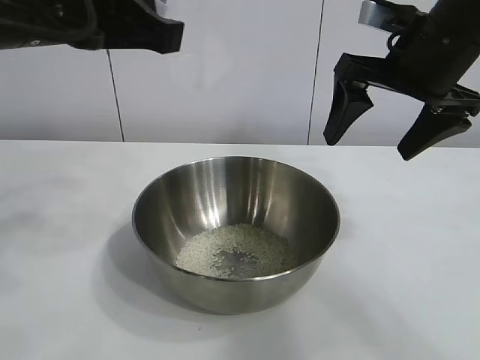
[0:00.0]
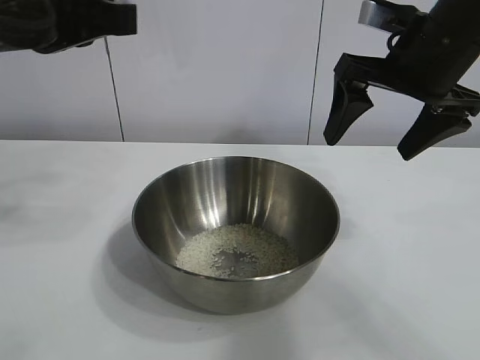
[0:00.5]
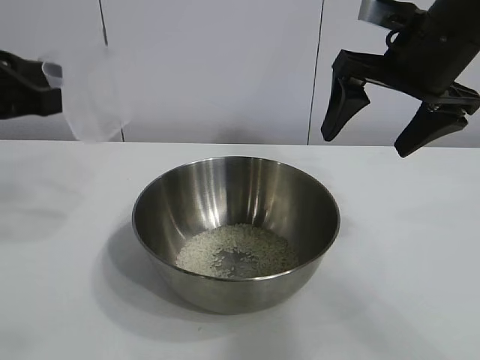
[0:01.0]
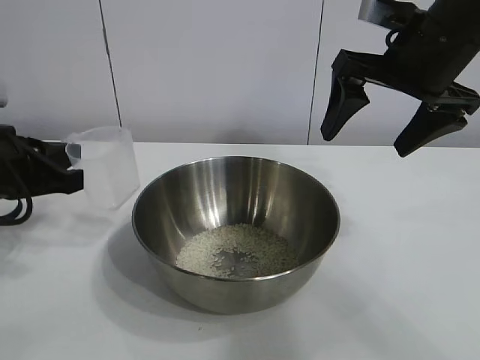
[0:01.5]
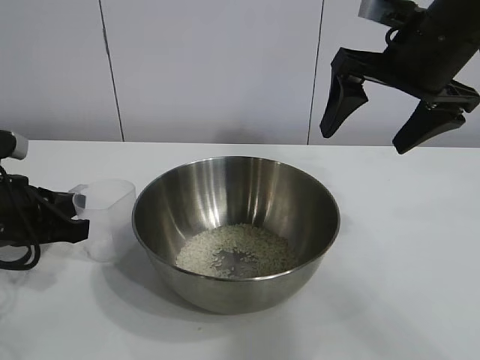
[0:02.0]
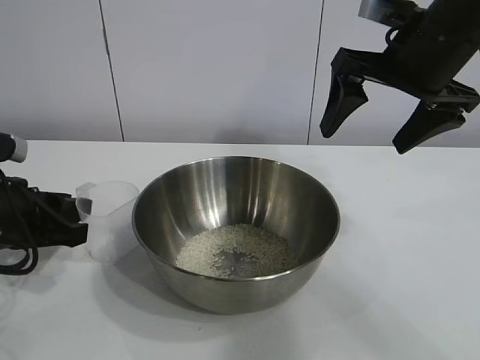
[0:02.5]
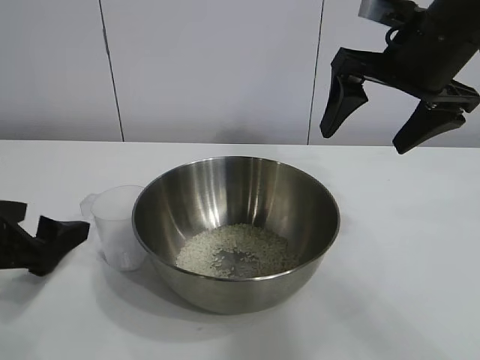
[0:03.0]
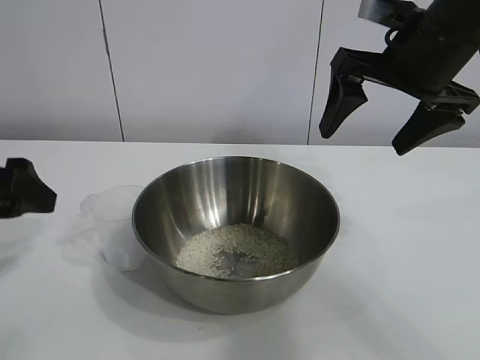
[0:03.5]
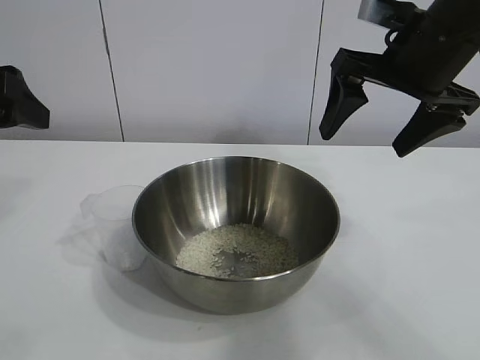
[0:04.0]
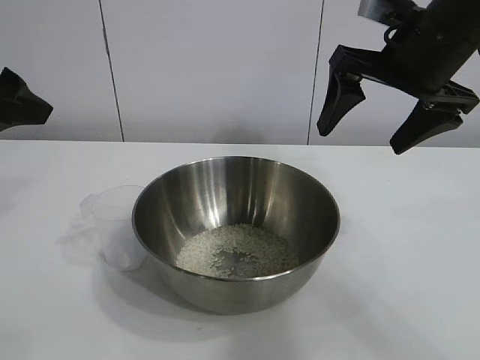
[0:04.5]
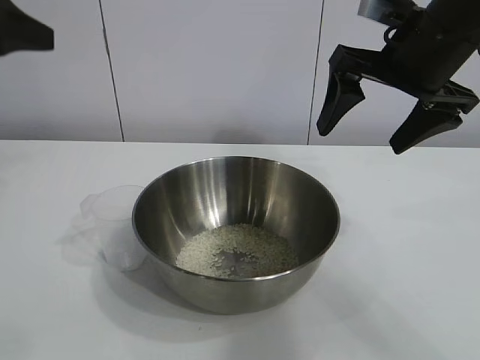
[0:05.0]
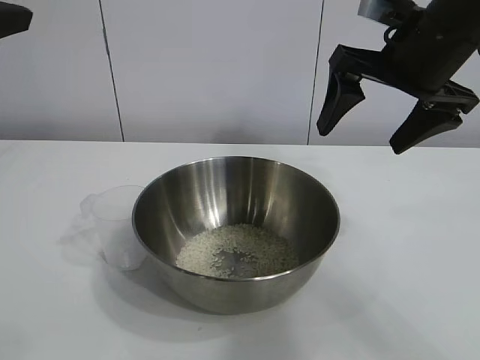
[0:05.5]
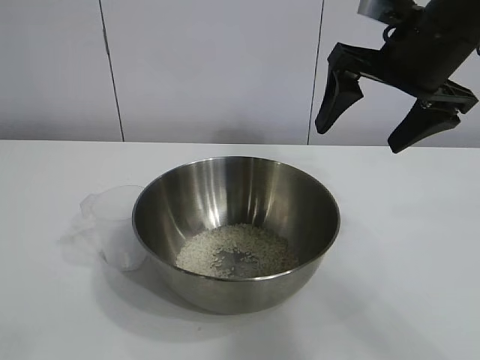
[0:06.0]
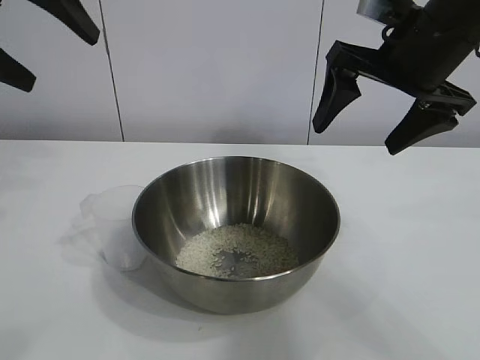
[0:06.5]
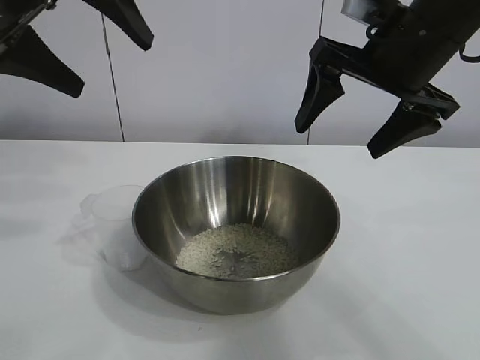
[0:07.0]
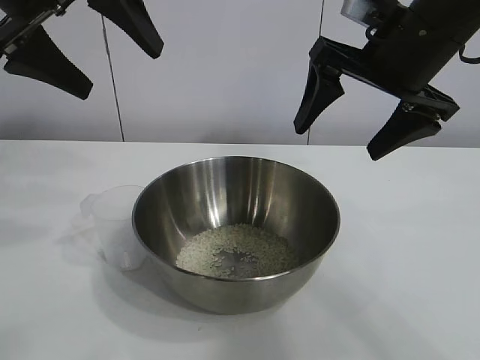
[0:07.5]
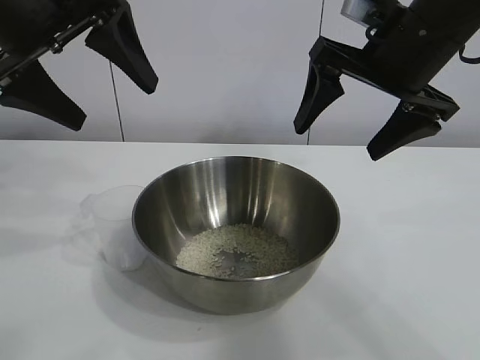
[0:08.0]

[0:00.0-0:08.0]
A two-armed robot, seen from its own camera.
Task of the whole recording: the right gripper grasp the rice container and place it in the center of the table, the left gripper grasp the rice scoop and pour the rice into the rice container.
Step, 0:00.0 to 0:02.0: Place the cup on the table with the left gripper.

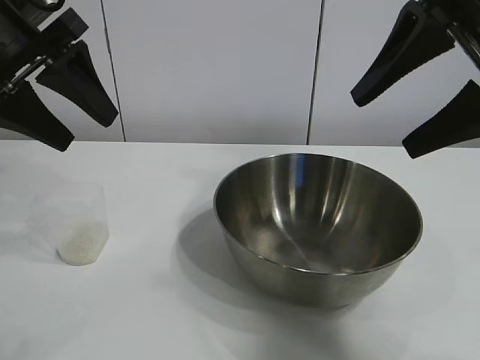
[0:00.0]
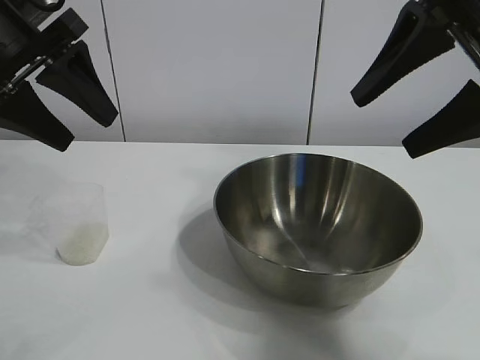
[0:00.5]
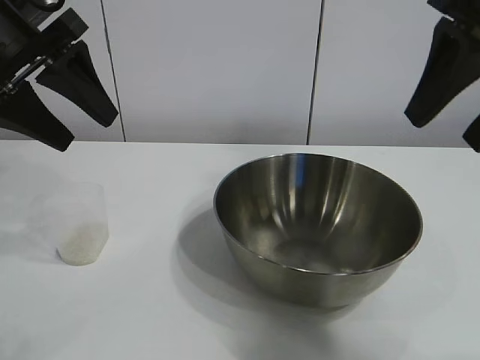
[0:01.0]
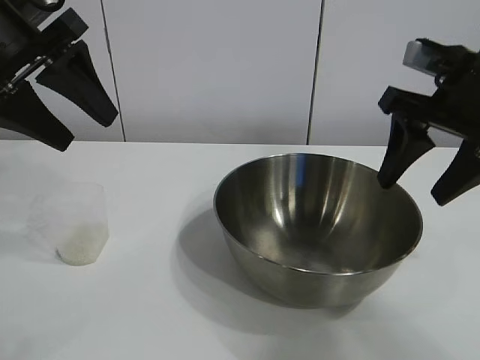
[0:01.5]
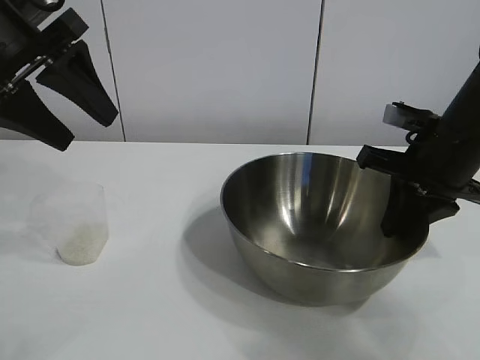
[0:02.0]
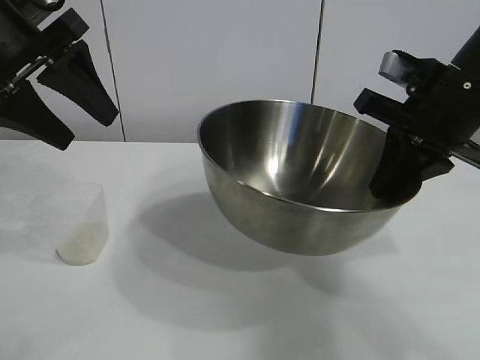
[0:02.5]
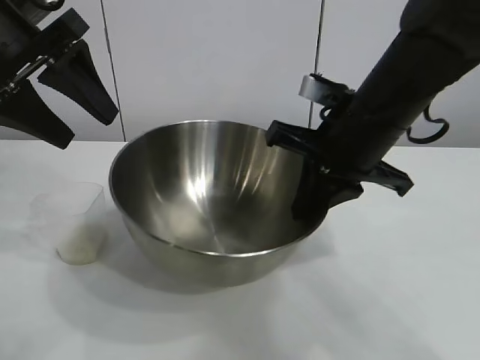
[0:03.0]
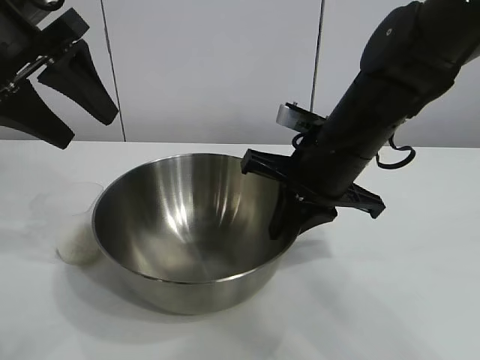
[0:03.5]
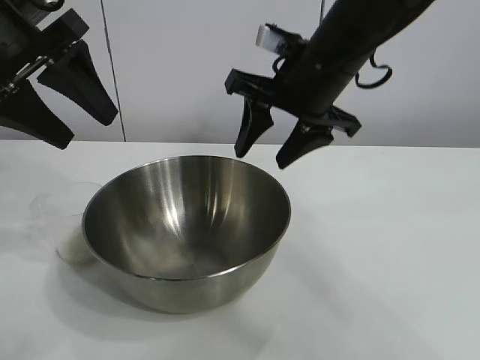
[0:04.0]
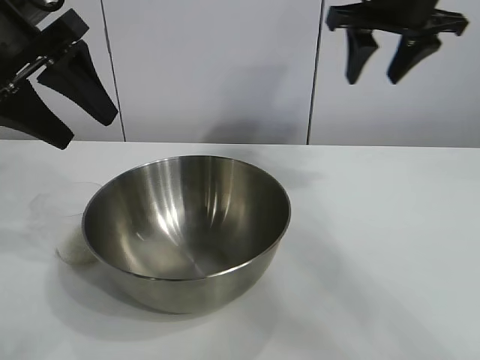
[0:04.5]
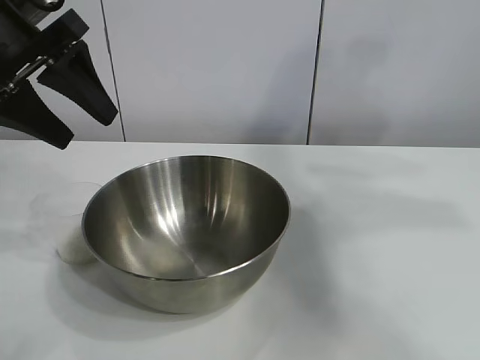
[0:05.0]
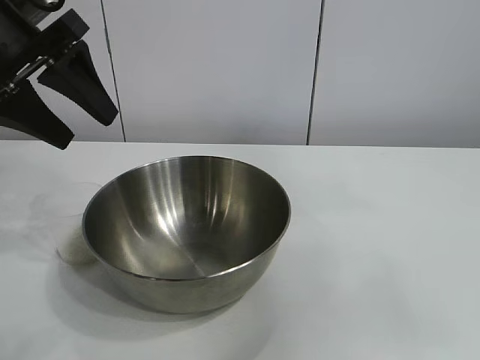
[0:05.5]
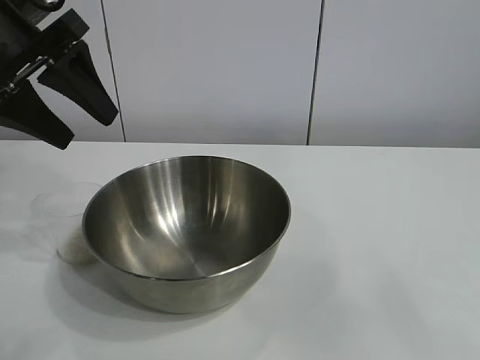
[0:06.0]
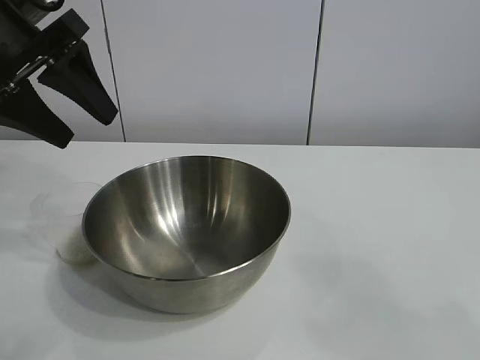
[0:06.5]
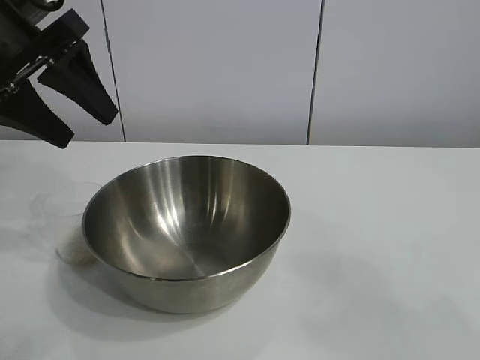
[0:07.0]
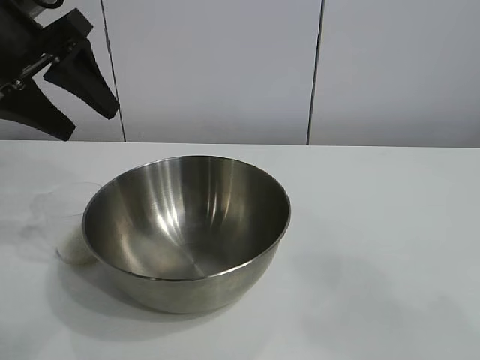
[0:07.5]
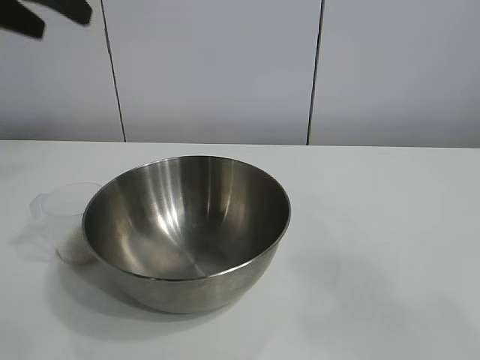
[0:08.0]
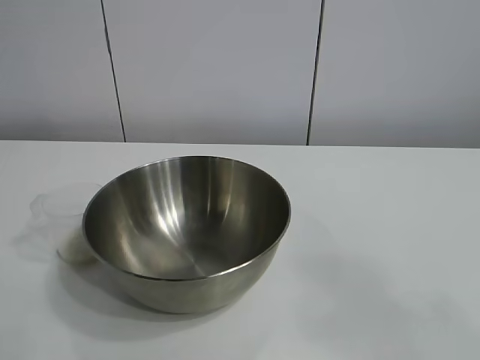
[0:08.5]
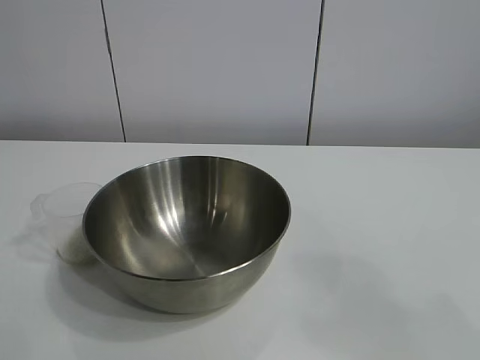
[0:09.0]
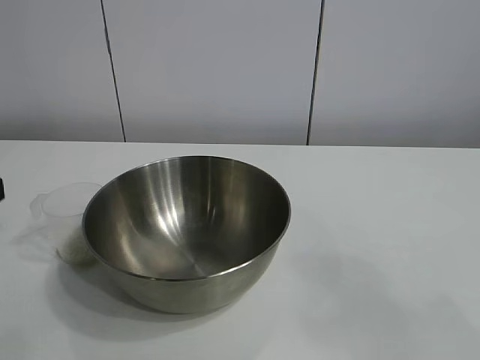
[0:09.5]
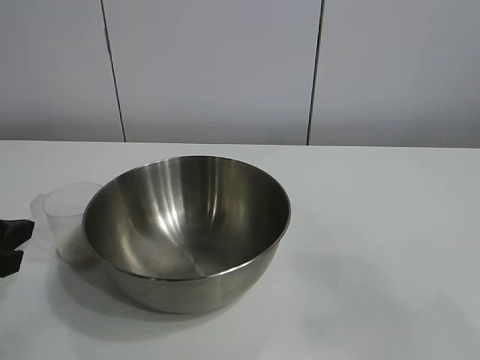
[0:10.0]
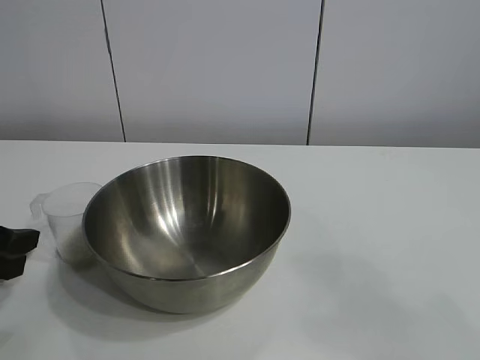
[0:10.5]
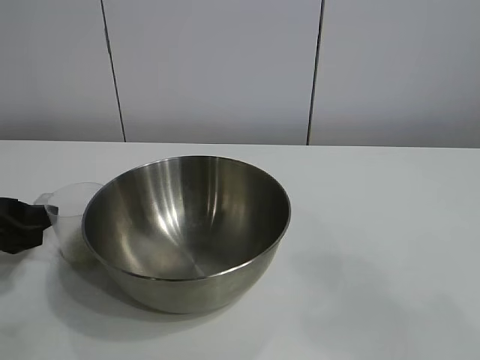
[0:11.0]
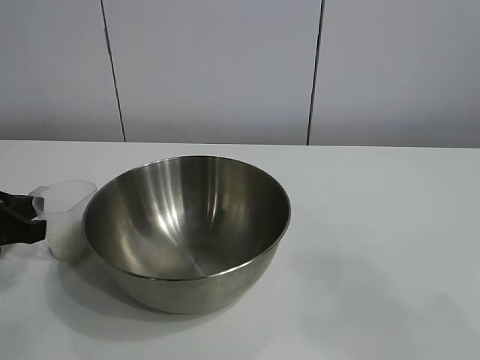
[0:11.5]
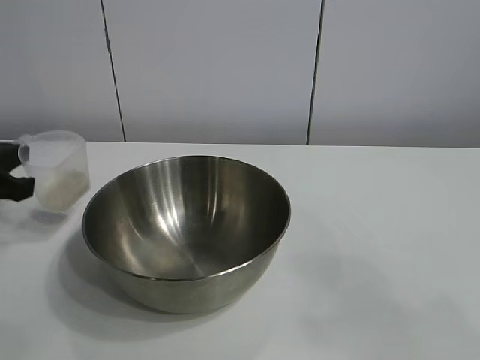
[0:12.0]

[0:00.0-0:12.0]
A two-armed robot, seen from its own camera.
Task of the whole recording: the right gripper grasp the rice container and place it in the center of the table, the left gripper grasp the rice scoop and pour the rice into the rice container.
Step, 0:01.0 to 0:03.5: Move the bowl in the center of view with right gripper.
Step, 0:04.0 to 0:11.5: Grasp the cup with rice in it with left gripper.

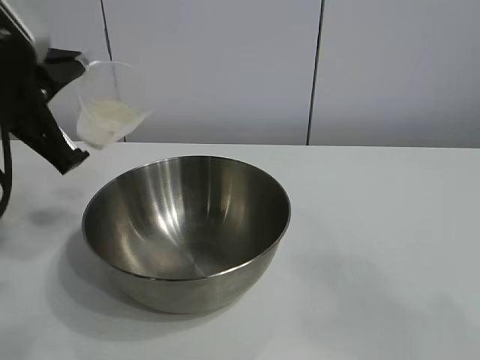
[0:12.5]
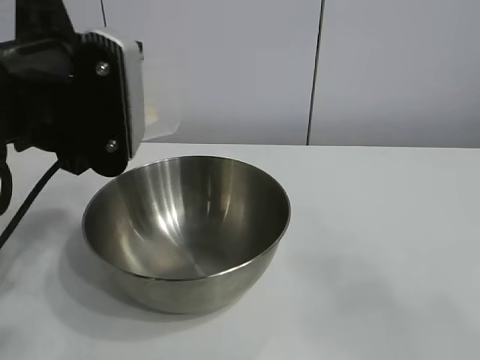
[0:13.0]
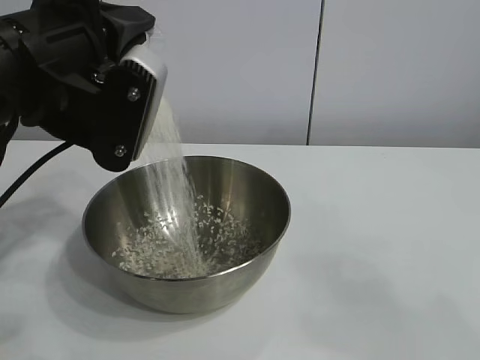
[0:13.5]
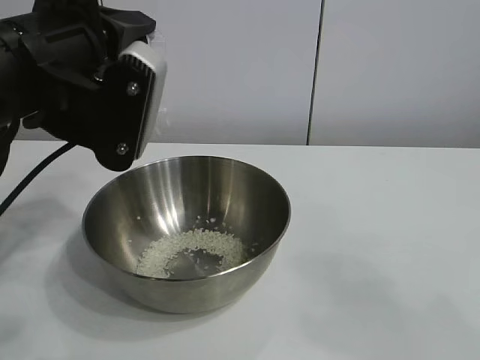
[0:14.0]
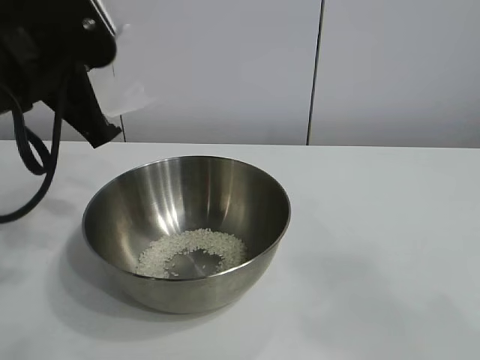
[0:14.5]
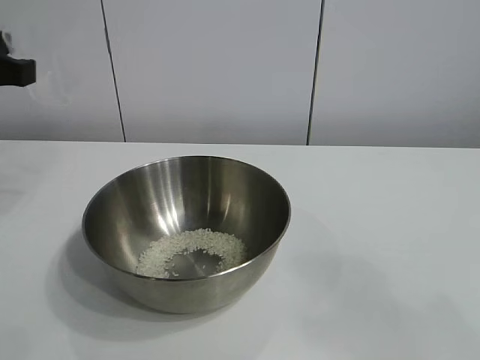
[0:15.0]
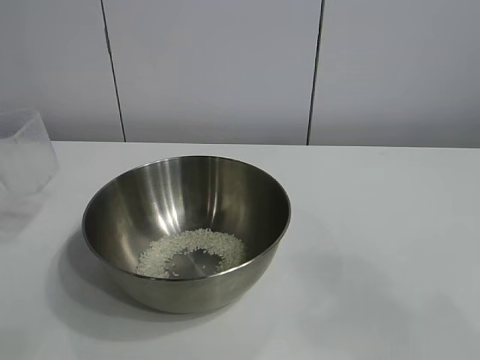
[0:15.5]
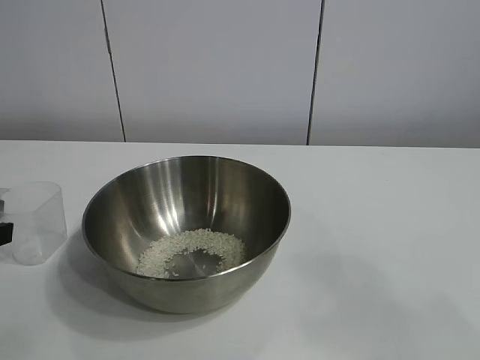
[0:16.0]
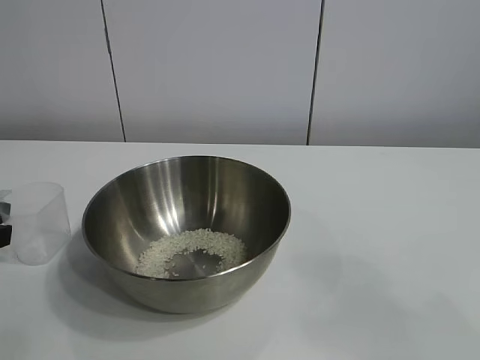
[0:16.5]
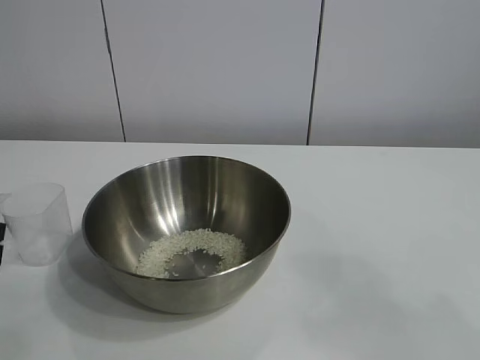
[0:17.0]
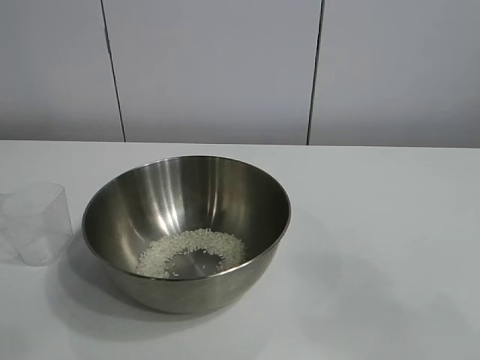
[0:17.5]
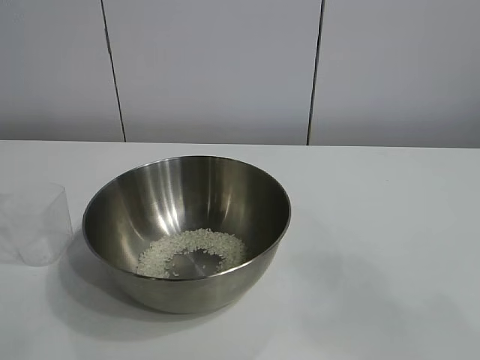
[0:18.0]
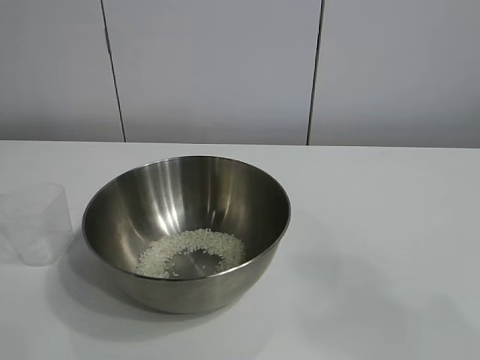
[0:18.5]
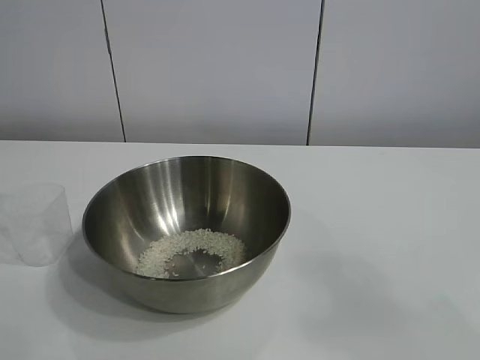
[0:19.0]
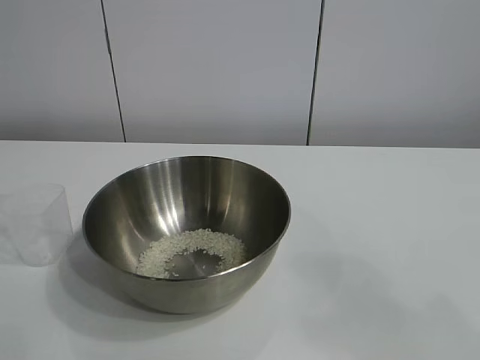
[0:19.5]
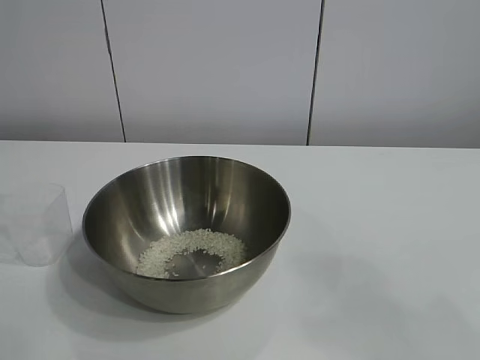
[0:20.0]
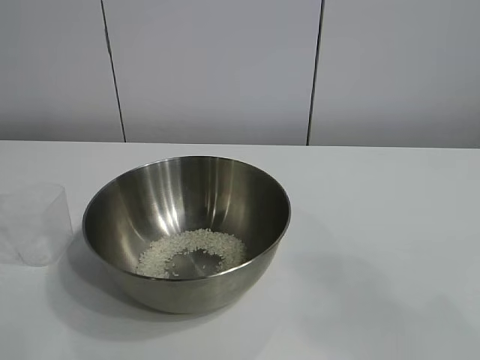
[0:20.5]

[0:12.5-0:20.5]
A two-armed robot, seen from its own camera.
Task of the whole recording: the right gripper grasp the rice container and place it in the center of the table, the left gripper grasp the rice scoop and pour the rice into the rice container.
Step, 0:12.5 to 0:14.0: Pour the rice from the cup into the bowl with the left gripper.
Step, 0:14.5 to 0:16.5: Place the cup on the table with the left gripper.
